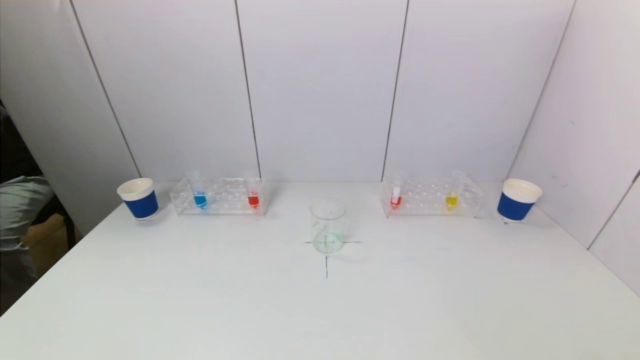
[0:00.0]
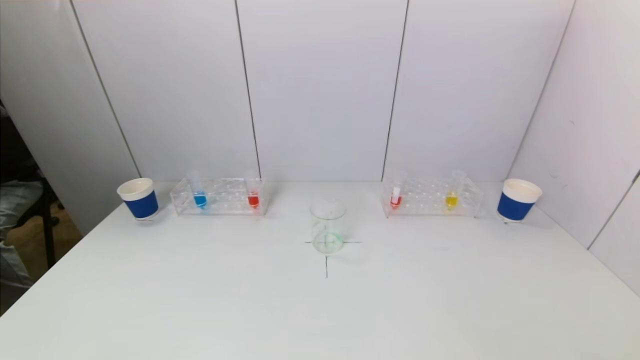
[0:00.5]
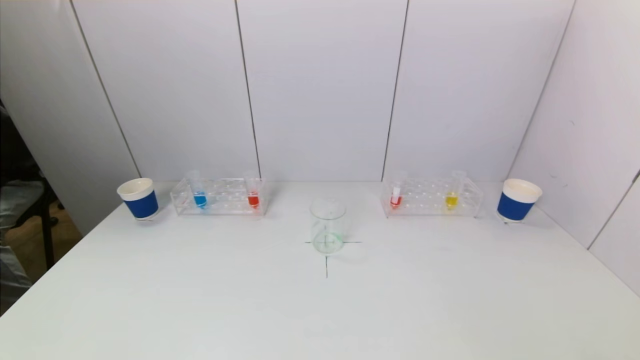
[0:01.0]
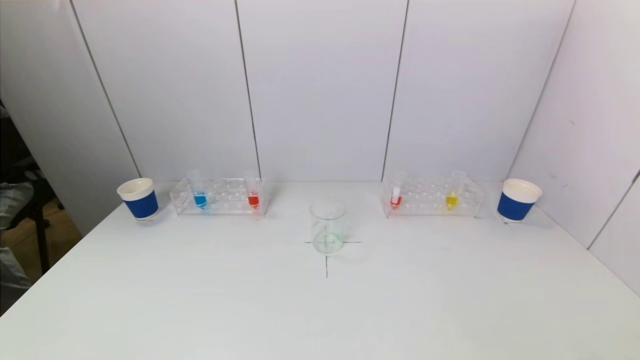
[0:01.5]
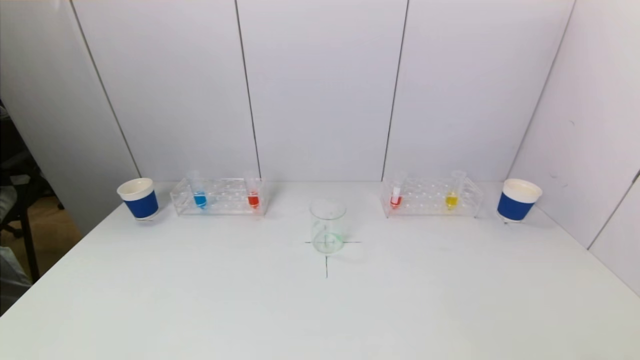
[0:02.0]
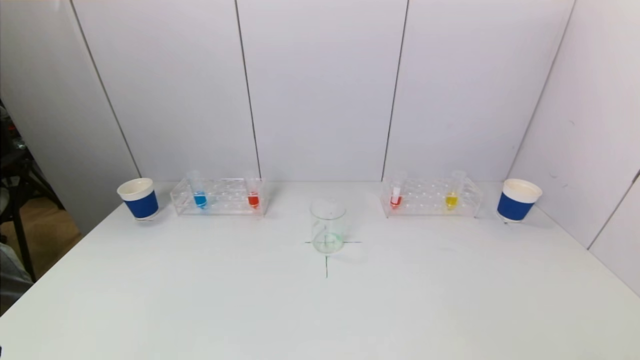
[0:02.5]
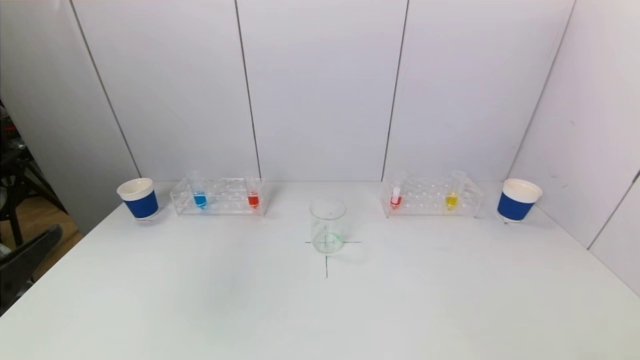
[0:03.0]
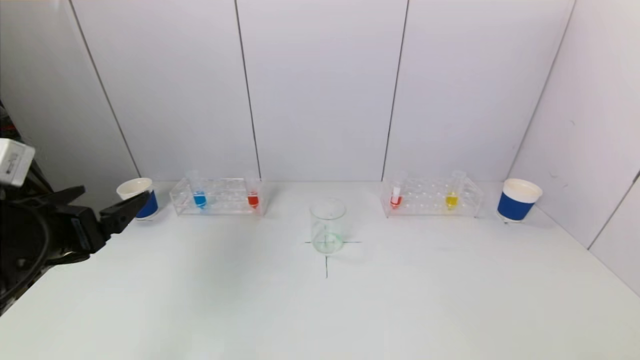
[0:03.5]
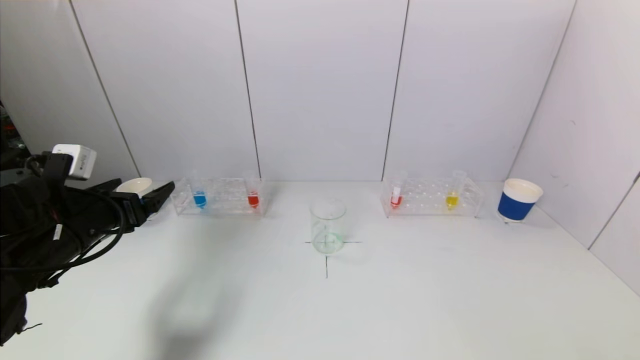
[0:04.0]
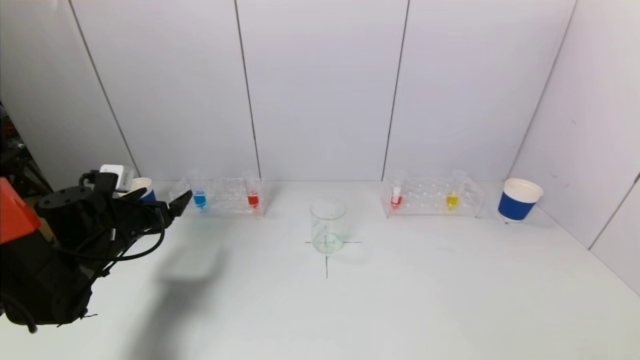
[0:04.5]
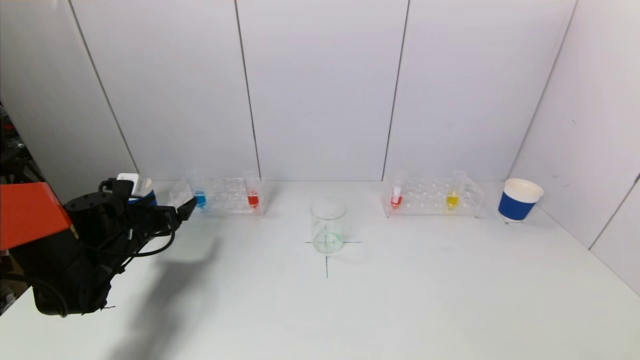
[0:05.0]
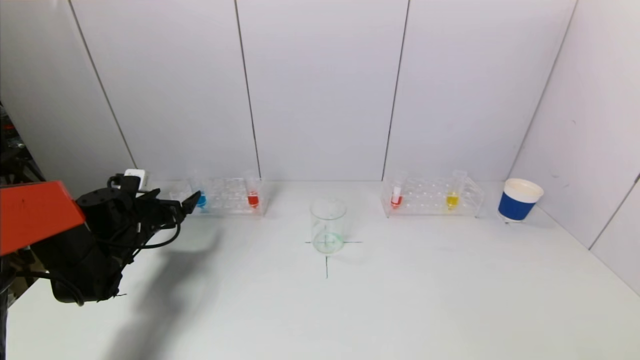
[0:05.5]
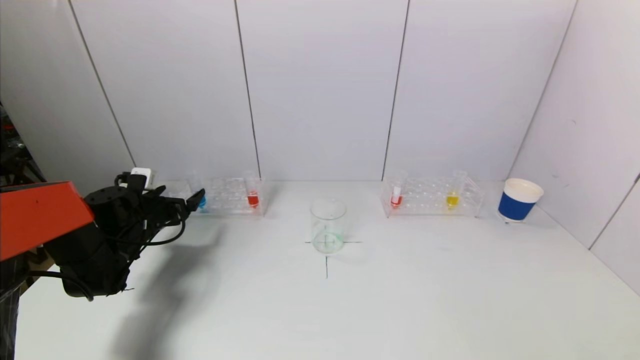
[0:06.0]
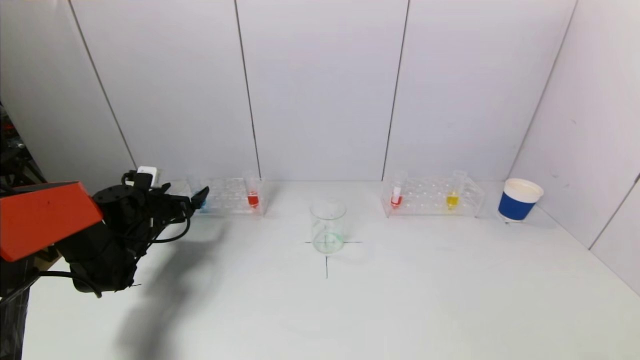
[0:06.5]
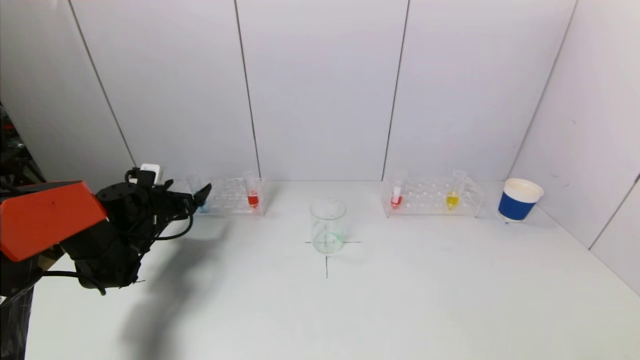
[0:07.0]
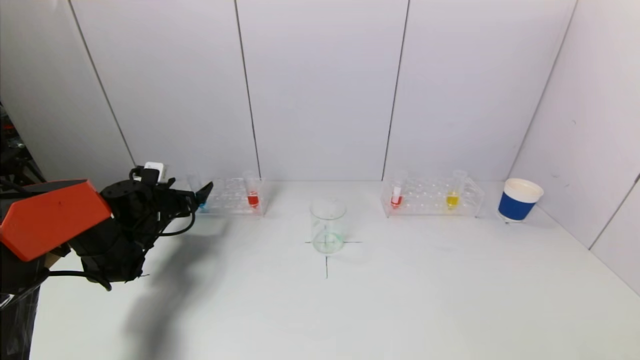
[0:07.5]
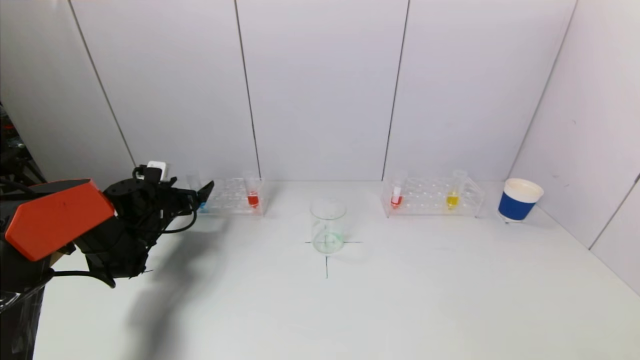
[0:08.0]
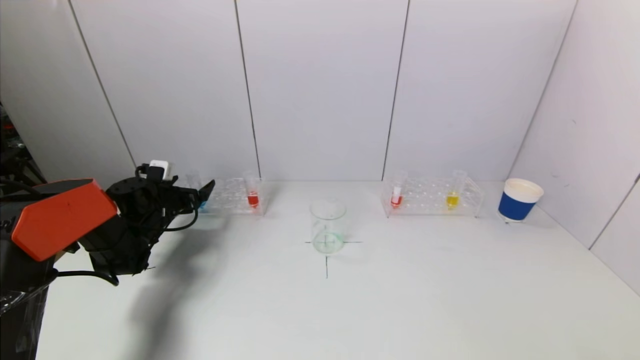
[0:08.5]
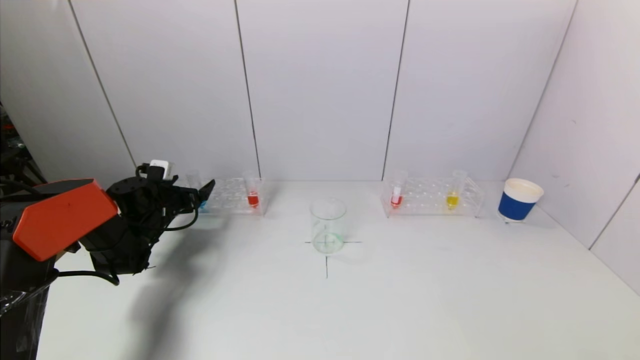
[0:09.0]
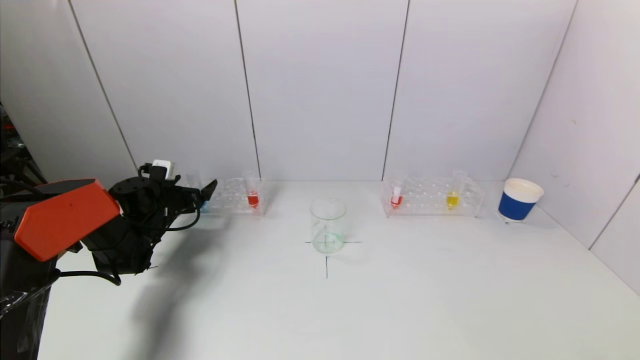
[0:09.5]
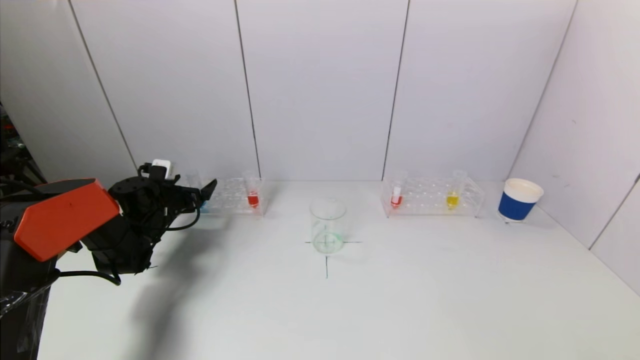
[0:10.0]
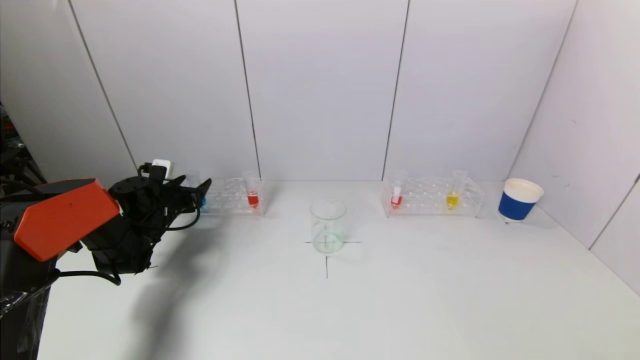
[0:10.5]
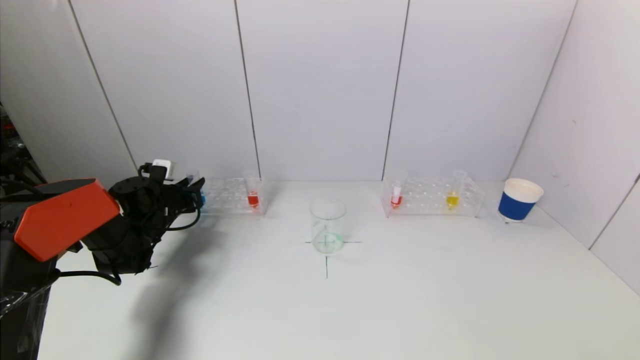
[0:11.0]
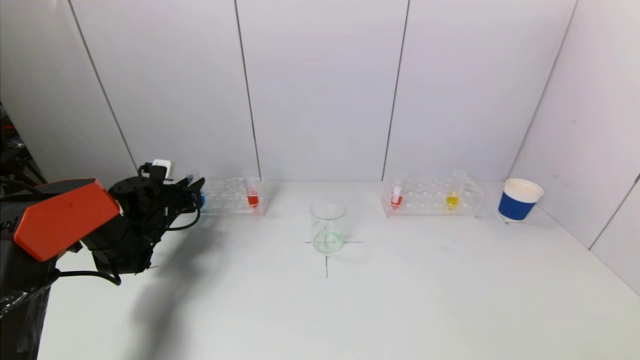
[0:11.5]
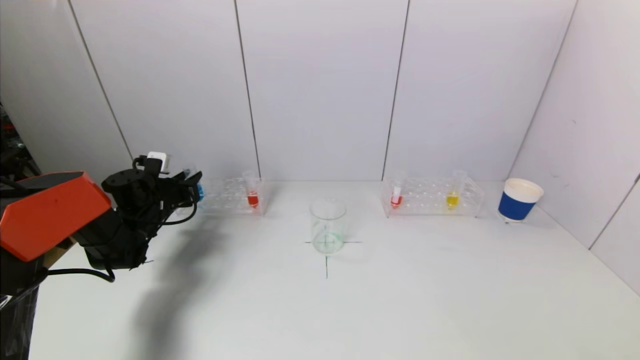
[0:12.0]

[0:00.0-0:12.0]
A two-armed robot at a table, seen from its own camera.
Task of the whole recording: pick up a test tube with pigment on left test tube rack and a test tube with pigment on right test tube rack by grippers and pour them into the beaker.
Step, 0:00.0 to 0:11.0: Grasp the blue reagent with the left gripper.
0:00.0 to 0:02.0: The grippers move only a little.
0:02.0 to 0:04.0: The left gripper travels forward by approximately 30 cm.
0:04.0 to 0:06.0: The left gripper heads forward and downward, covering approximately 15 cm.
0:06.0 to 0:08.0: The grippers stay close to where they were, moving slightly.
0:08.0 to 0:10.0: The two grippers keep their place.
0:10.0 to 0:12.0: The left gripper closes.

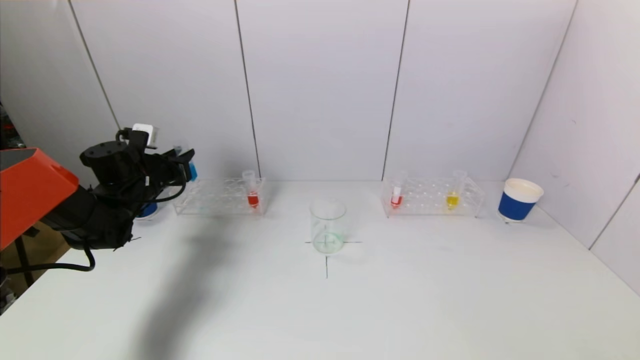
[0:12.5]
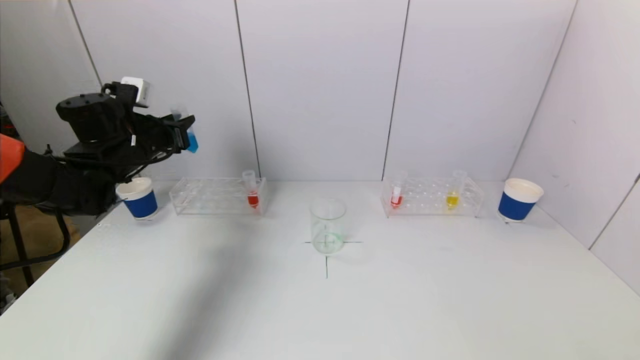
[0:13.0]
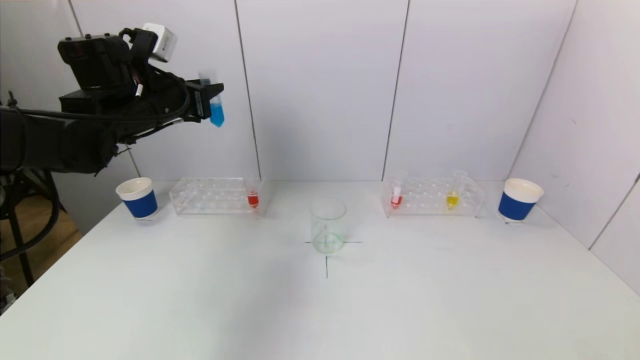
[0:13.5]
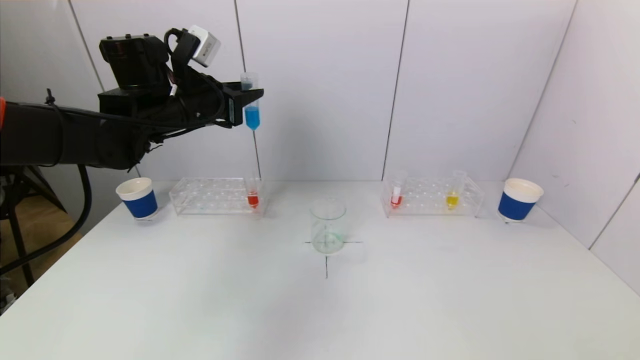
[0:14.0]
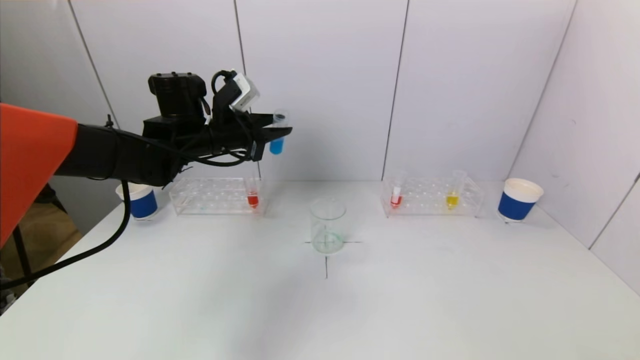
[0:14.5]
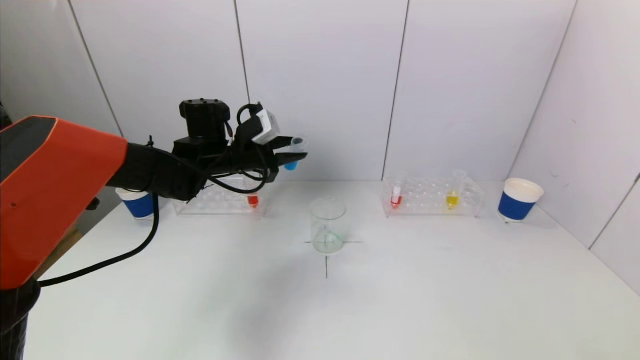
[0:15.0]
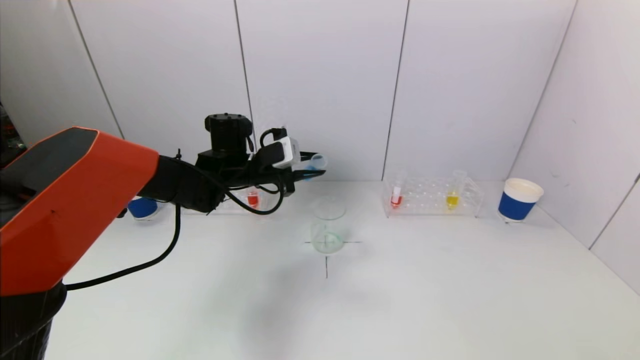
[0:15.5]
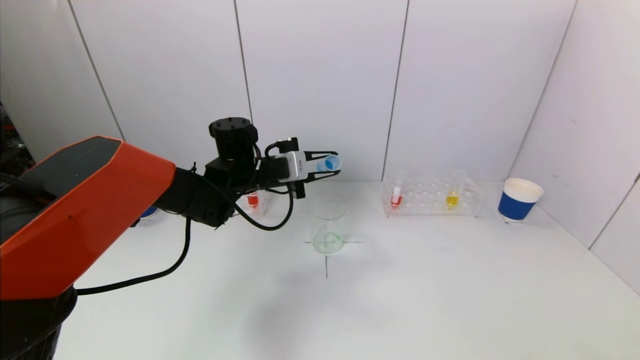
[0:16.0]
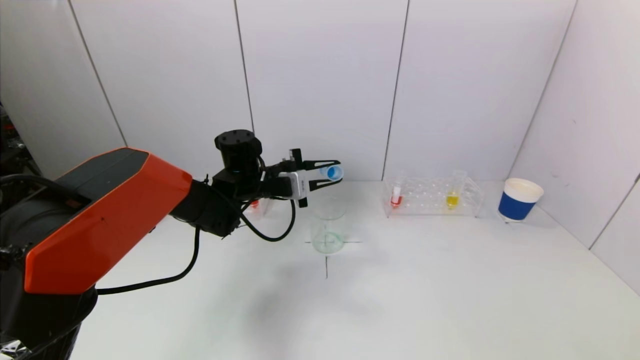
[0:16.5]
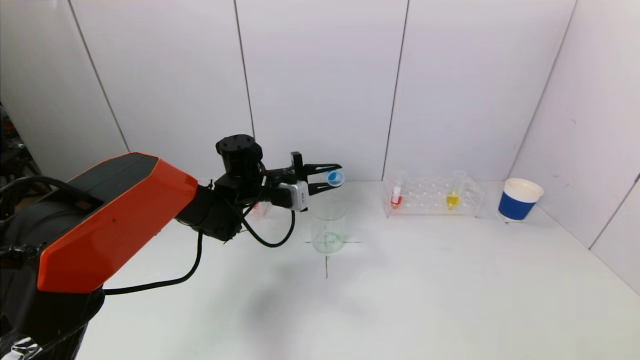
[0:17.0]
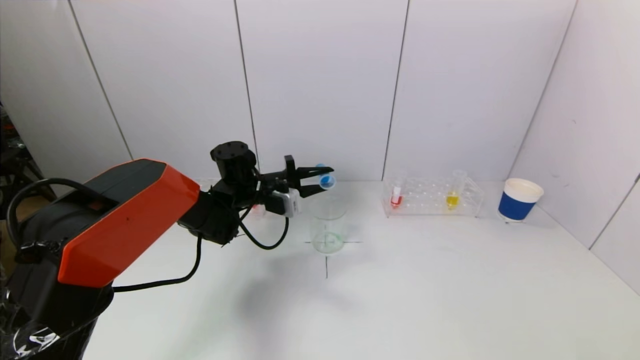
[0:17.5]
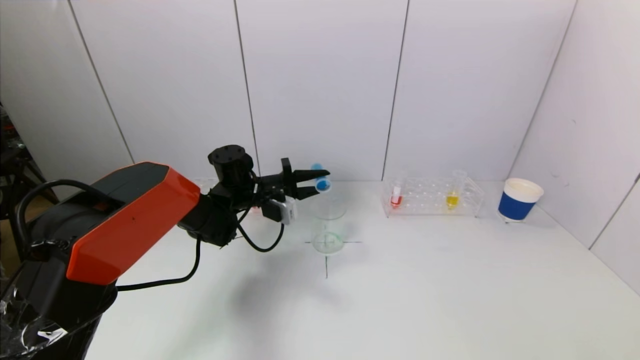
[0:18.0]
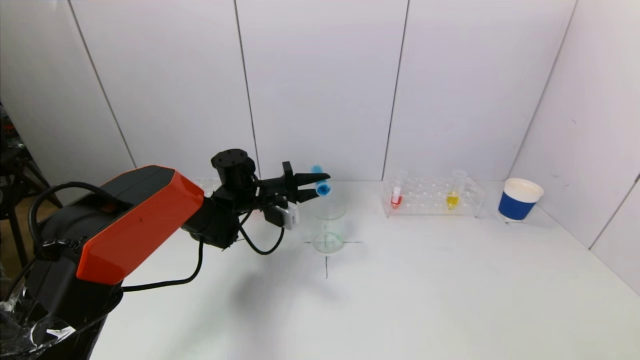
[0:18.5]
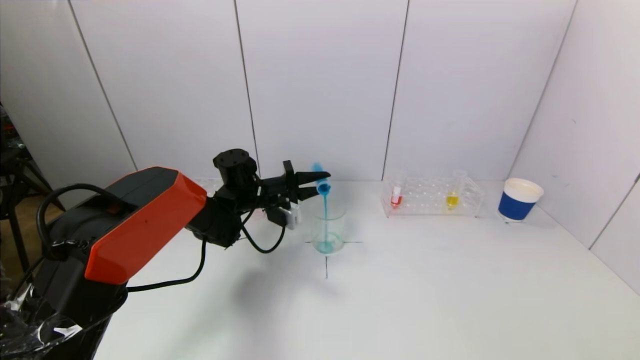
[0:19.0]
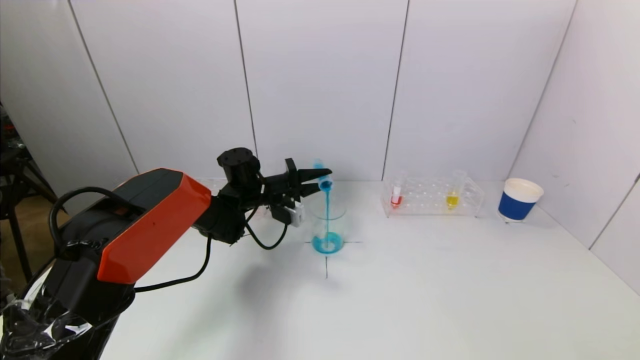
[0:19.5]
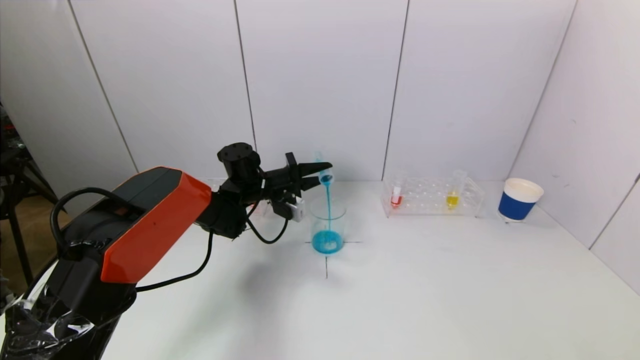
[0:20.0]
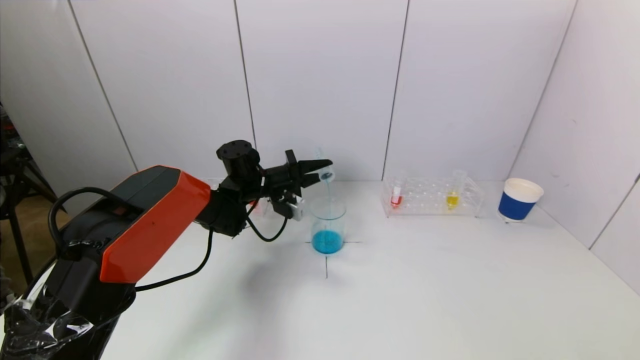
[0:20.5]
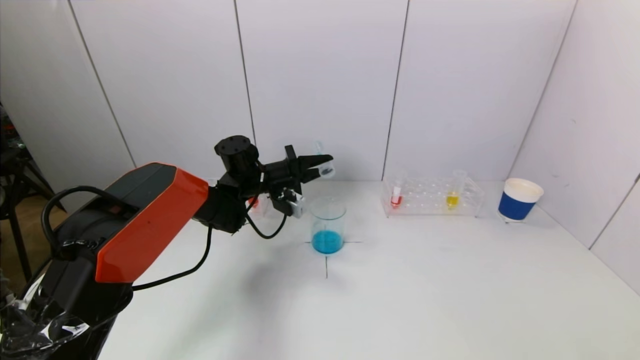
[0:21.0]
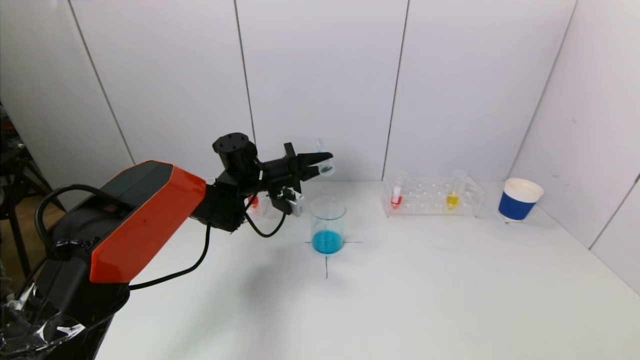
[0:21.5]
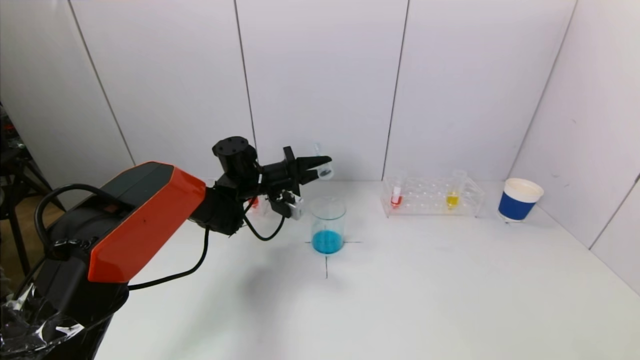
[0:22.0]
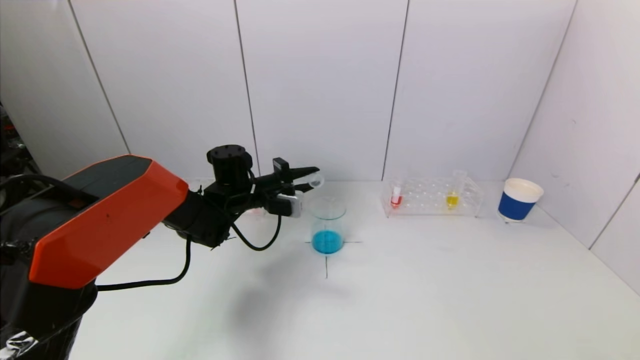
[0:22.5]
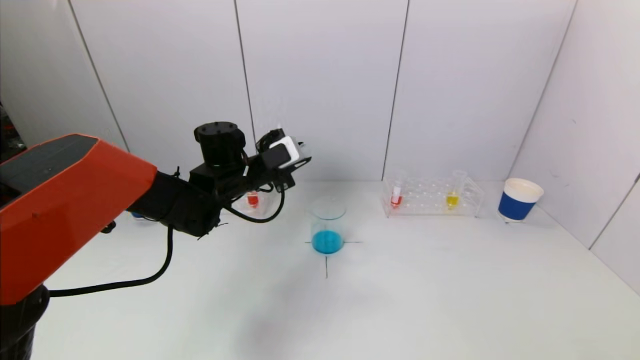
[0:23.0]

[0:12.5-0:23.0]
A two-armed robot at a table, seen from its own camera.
Task of the whole recording: pick up a test tube with pigment on left test tube rack and a test tube with pigment on right test tube rack by grippers and pour them into the beaker.
Step, 0:12.5 to 0:21.0: Pour the blue reagent into the graduated cylinder with the left gripper.
0:12.5 to 0:14.5: The left gripper moves to the right and upward, approximately 20 cm.
0:14.5 to 0:16.5: The left gripper moves downward and to the right, roughly 10 cm.
0:16.5 to 0:19.0: The left gripper changes place by roughly 5 cm.
0:19.0 to 0:21.0: The grippers move only a little.
0:21.0 to 0:23.0: The left gripper is displaced backward by roughly 5 cm.
